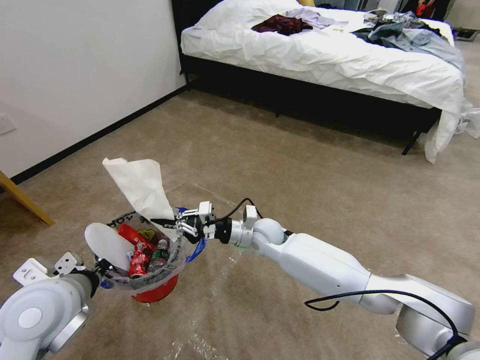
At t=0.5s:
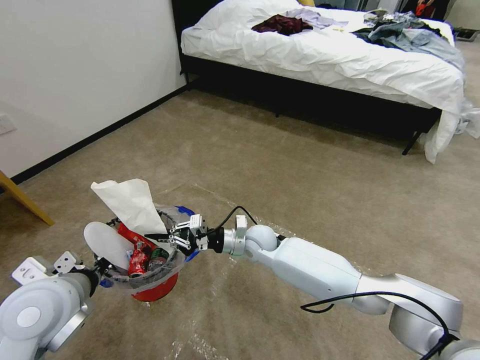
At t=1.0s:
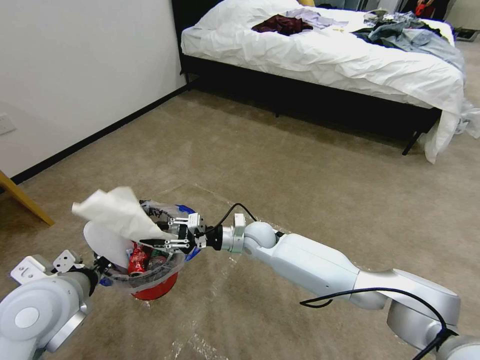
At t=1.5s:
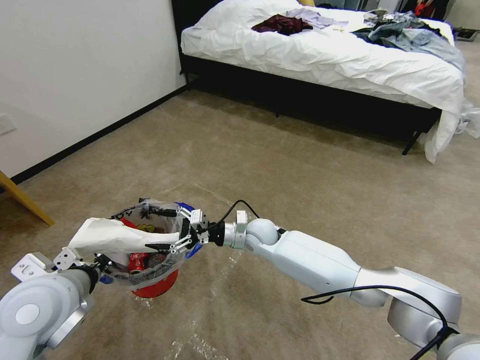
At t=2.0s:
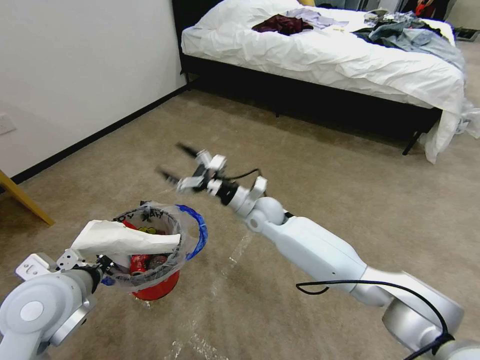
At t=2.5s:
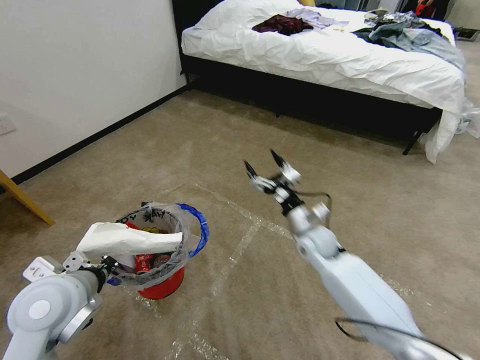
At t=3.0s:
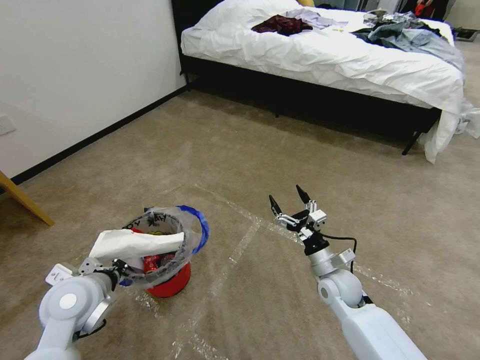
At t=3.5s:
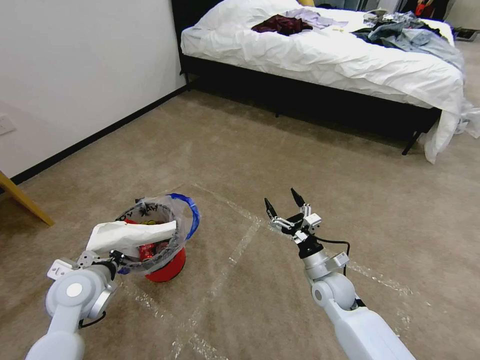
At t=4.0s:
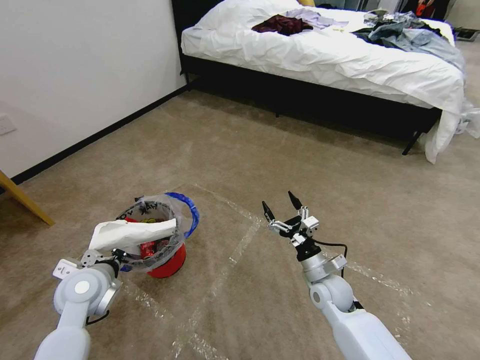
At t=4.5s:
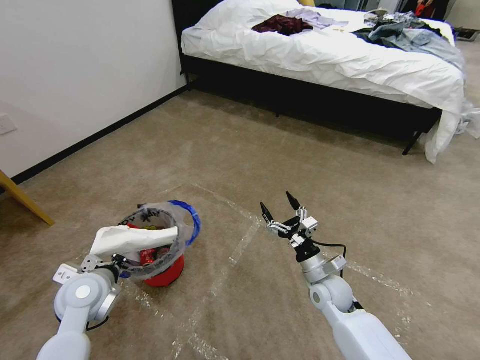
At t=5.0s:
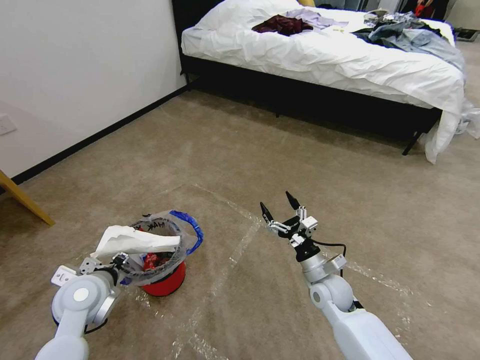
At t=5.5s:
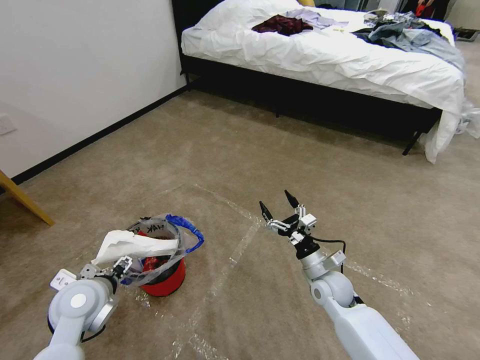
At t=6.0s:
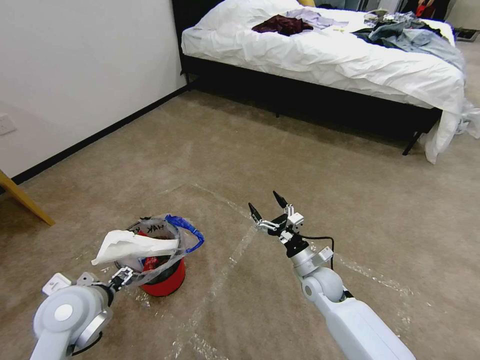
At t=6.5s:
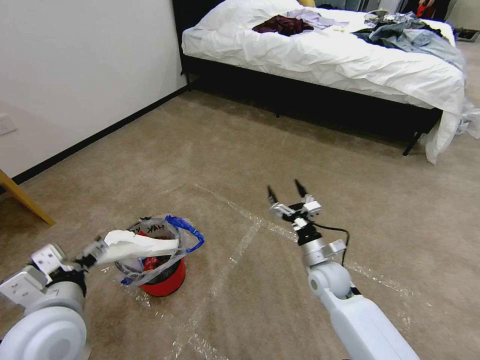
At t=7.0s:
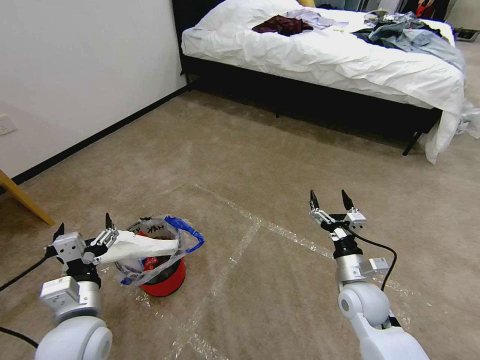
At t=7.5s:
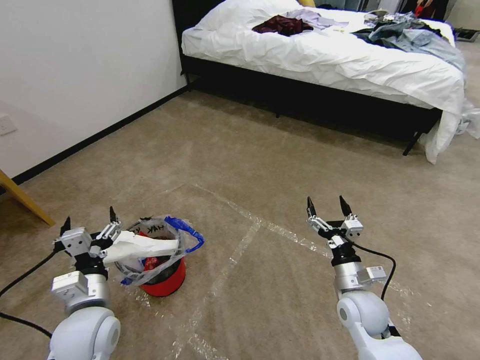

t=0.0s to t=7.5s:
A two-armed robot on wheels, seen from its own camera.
Task of the whole recording: Pick up the trash bin and place the garbage on the floor into it.
t=0.0s to t=2.0s: The right gripper heads upward, covering about 5 cm, and opens up.
t=2.0s to t=4.0s: The right gripper shifts roughly 25 cm to the right, backward and downward. Meanwhile the left gripper shifts about 10 cm downward and forward.
t=4.0s to t=5.5s: The left gripper opens its fingers.
t=5.5s to t=7.5s: Both grippers move backward, roughly 5 cm. The left gripper moves approximately 10 cm upward and comes back.
